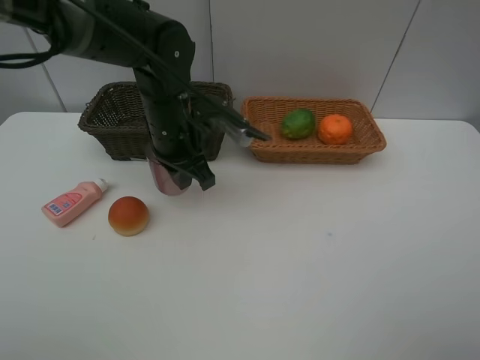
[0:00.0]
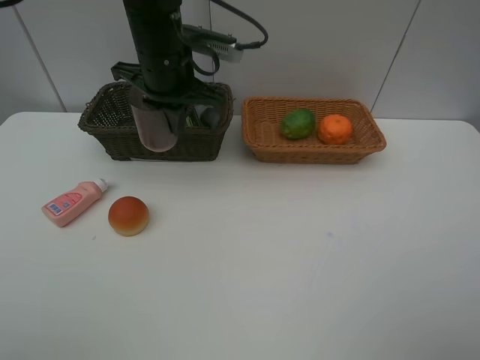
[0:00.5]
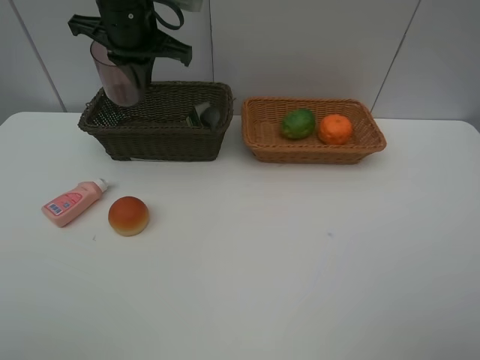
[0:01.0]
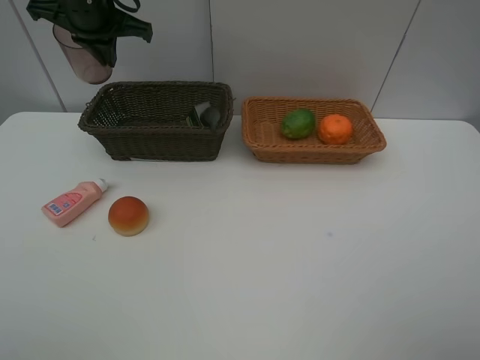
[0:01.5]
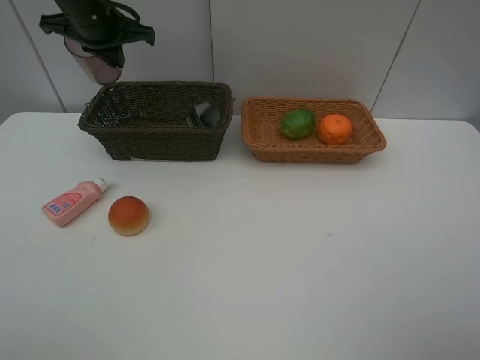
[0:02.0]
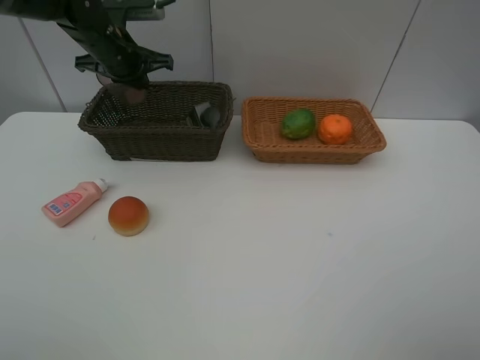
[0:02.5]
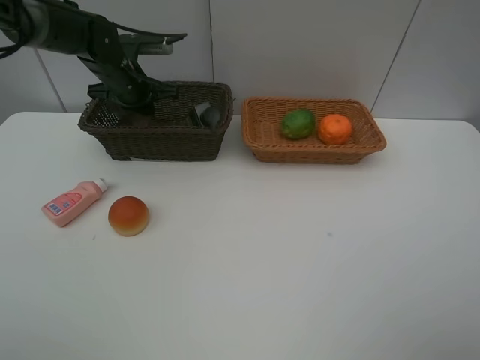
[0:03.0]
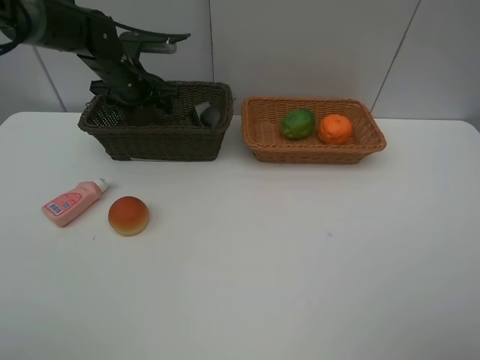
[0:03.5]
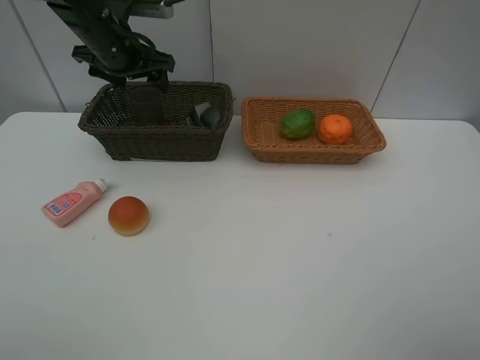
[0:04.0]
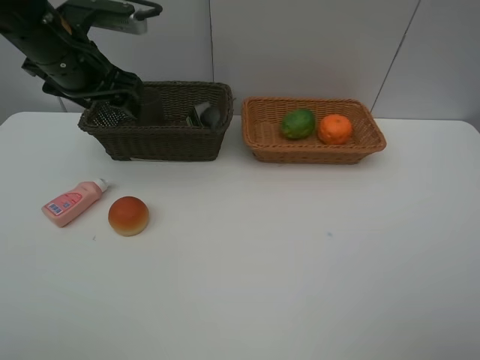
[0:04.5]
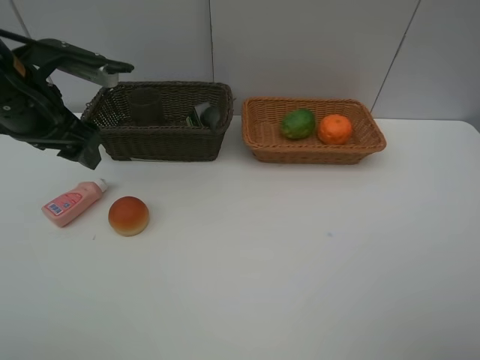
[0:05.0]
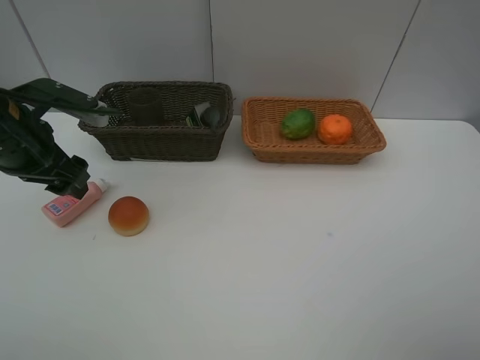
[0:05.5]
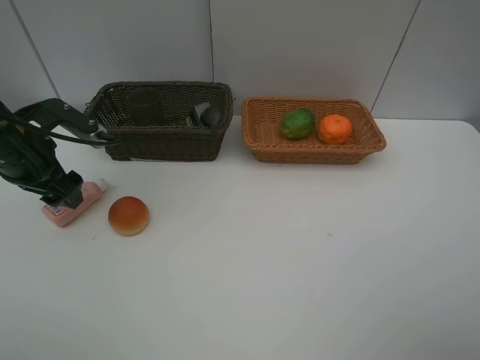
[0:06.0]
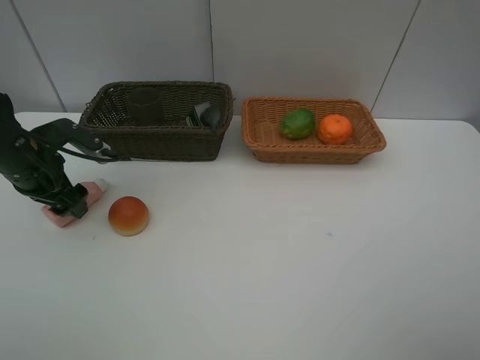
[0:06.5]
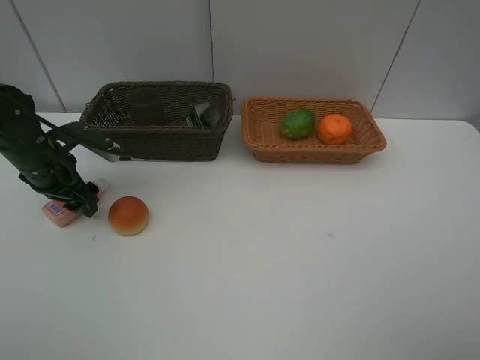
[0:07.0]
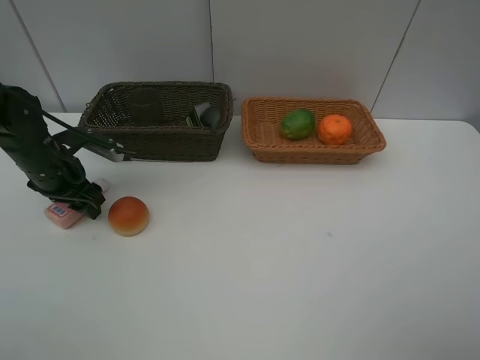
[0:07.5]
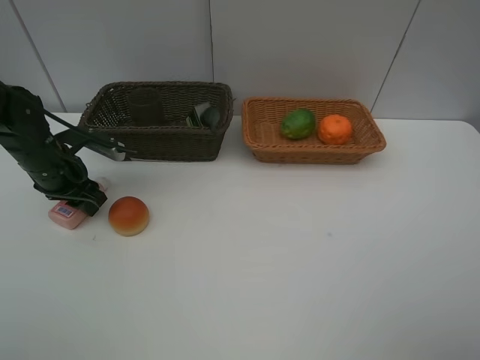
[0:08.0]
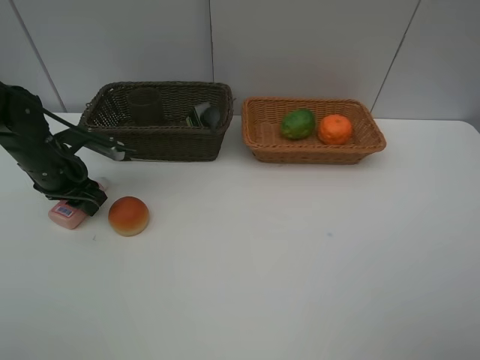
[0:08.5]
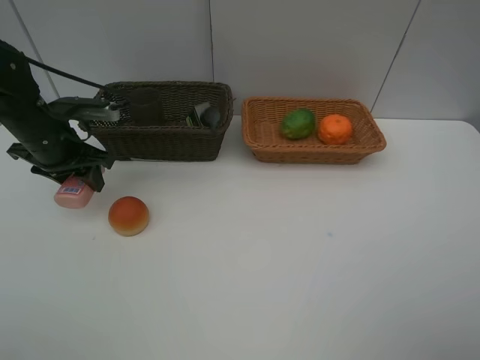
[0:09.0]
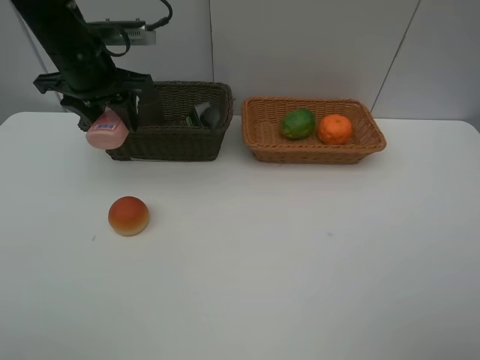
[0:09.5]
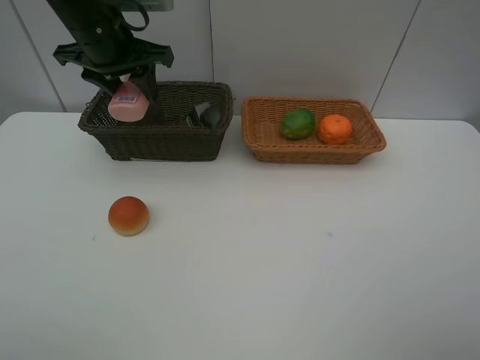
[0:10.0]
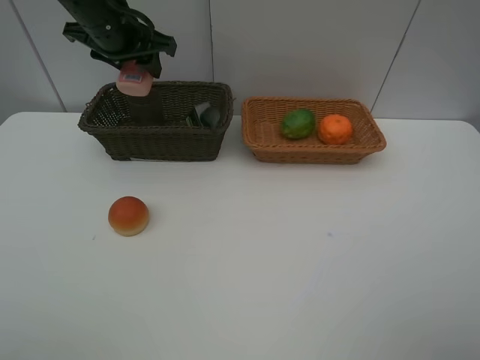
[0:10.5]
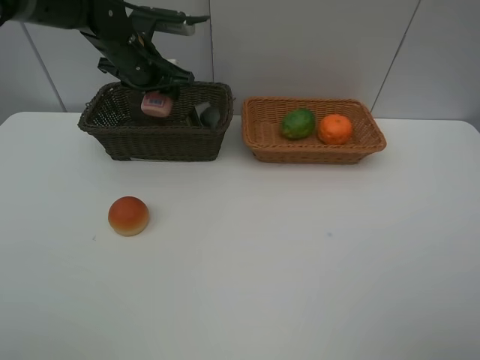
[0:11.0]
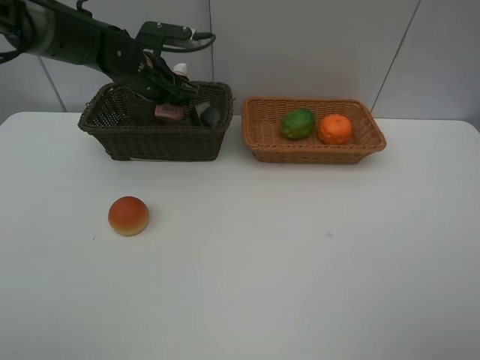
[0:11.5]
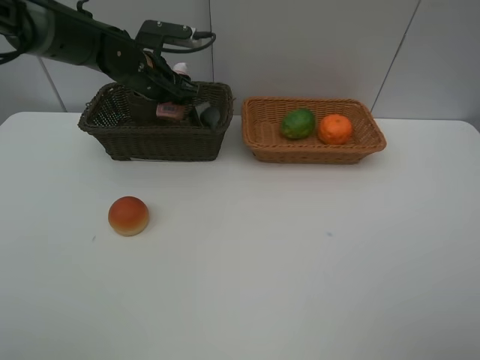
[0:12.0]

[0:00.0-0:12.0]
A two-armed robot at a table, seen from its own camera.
Task of the whole recording: place multiple objects separately in different baskets.
0:00.0 to 0:02.0: The left gripper heads to the left, forward and upward, covering roughly 20 cm.
0:02.0 to 0:04.0: The left gripper goes downward and returns, roughly 10 cm each way, and opens.
0:04.0 to 0:06.0: The left gripper travels backward, to the left and downward by approximately 20 cm.
0:06.0 to 0:08.0: The left gripper heads downward, covering roughly 5 cm, and closes its fingers.
0:08.0 to 0:10.0: The left gripper shifts about 20 cm upward and to the right.
0:10.0 to 0:12.0: The left gripper moves downward and forward, about 10 cm.

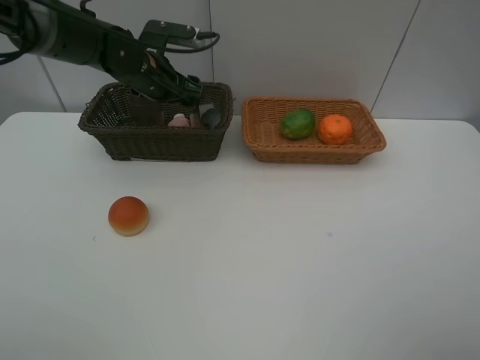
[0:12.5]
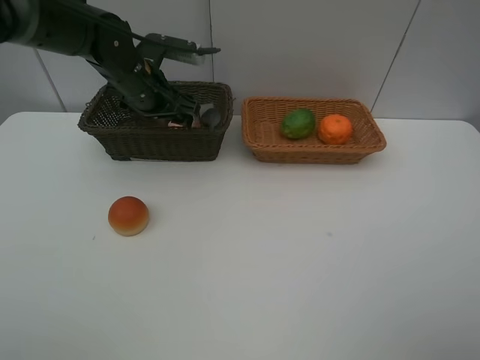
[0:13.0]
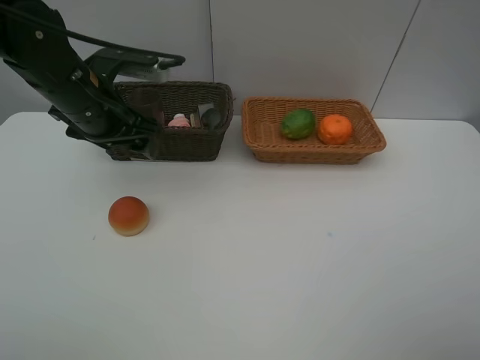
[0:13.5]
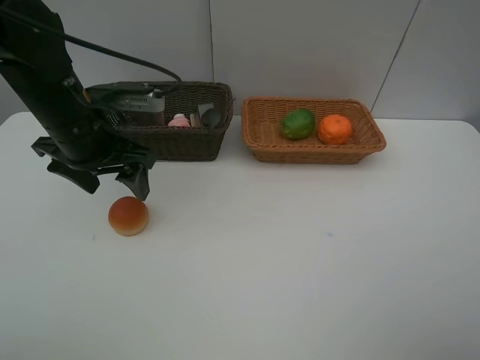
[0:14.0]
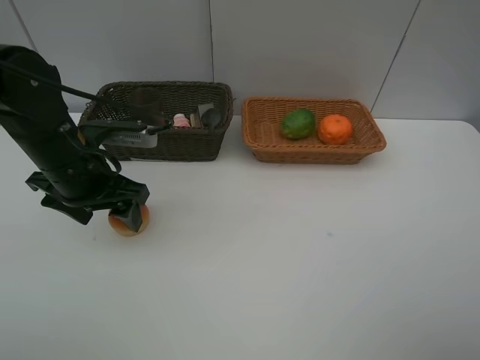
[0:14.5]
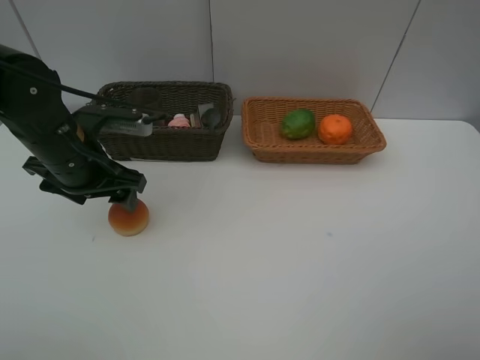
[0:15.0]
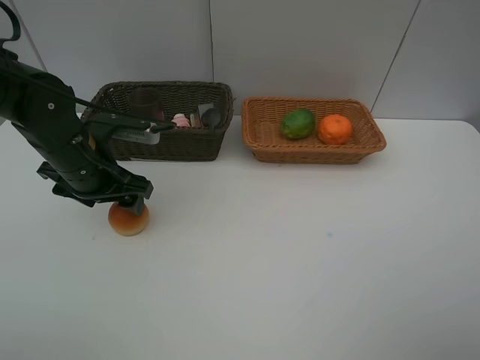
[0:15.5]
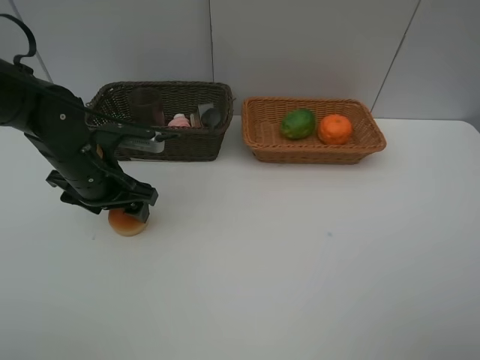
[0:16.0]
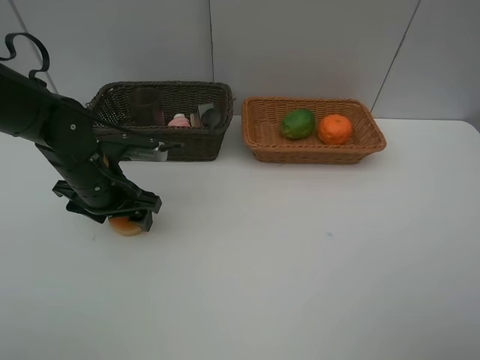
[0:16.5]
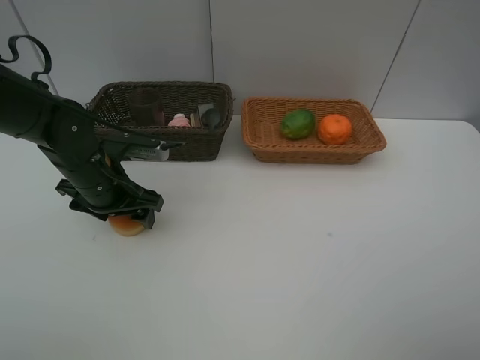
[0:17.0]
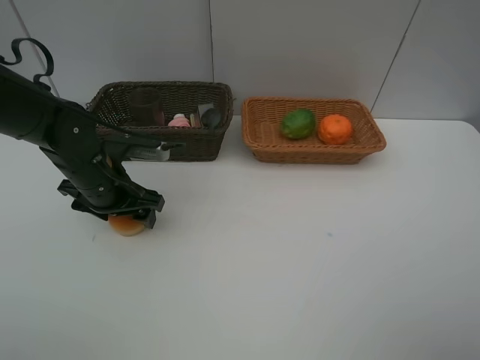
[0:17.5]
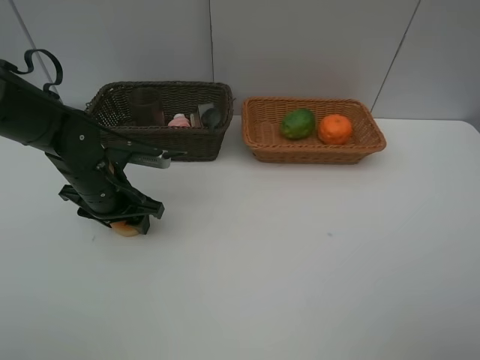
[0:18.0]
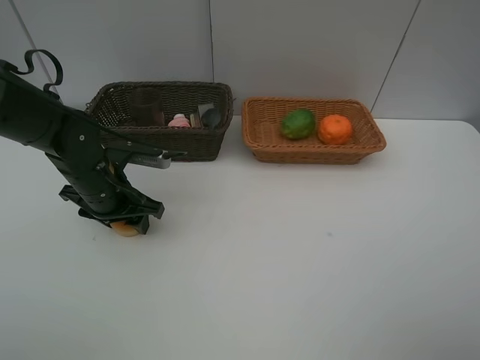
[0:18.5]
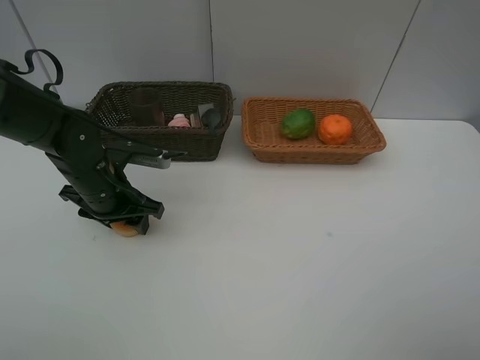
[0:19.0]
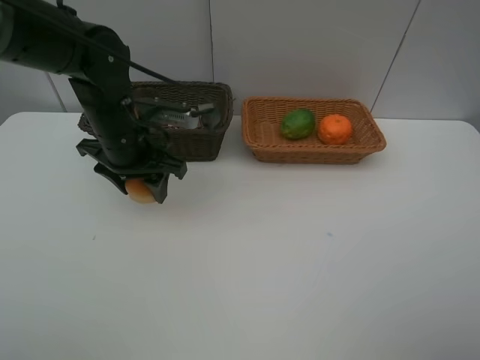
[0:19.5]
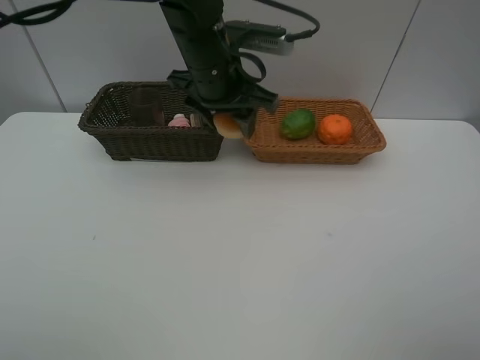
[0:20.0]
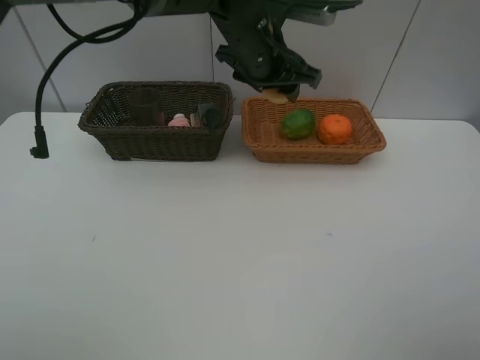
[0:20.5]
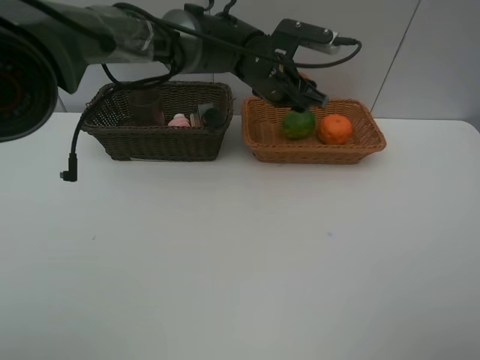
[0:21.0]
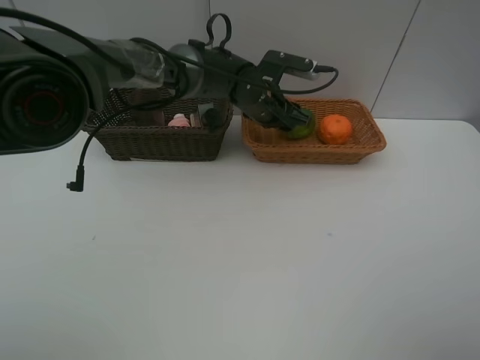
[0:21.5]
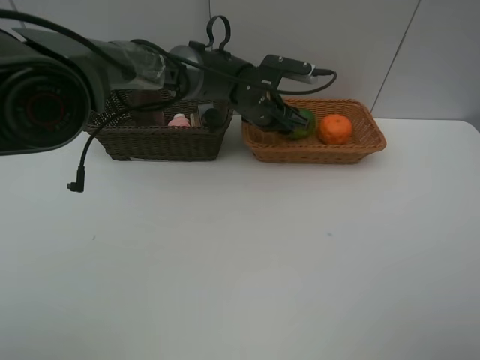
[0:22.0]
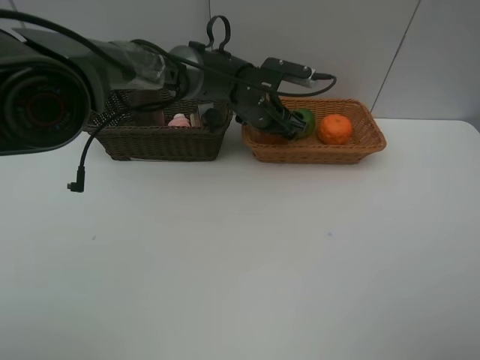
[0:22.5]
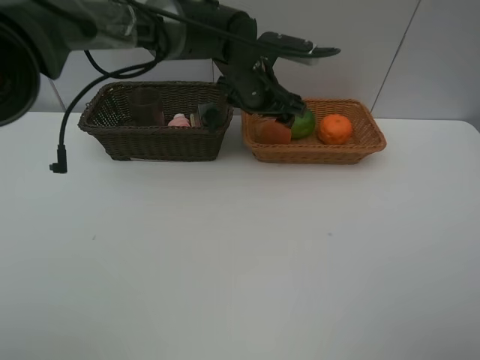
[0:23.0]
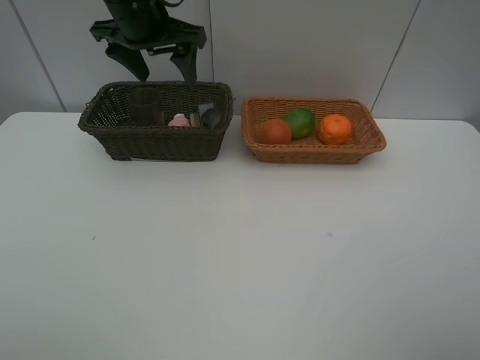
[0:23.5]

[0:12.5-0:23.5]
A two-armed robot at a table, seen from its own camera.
Task of the whole recording: place multiple objects separately in different baskets.
0:12.5 to 0:14.5: The left gripper is displaced backward by some 20 cm.
0:14.5 to 0:16.0: The grippers stay close to where they were, moving slightly.
0:16.0 to 0:18.0: There are only small adjustments of the grippers.
0:18.0 to 0:20.0: The left gripper heads to the right, upward and forward, covering about 25 cm.
0:20.0 to 0:21.5: The left gripper shifts some 15 cm downward, forward and to the right.
0:21.5 to 0:23.5: The left gripper is displaced to the left and upward by some 25 cm.

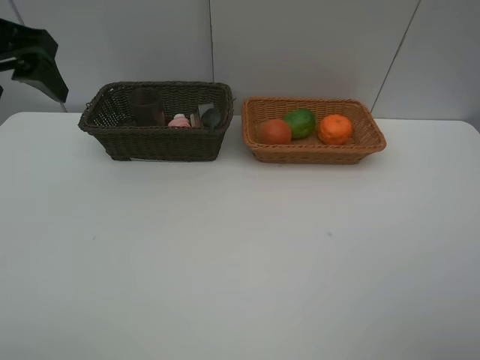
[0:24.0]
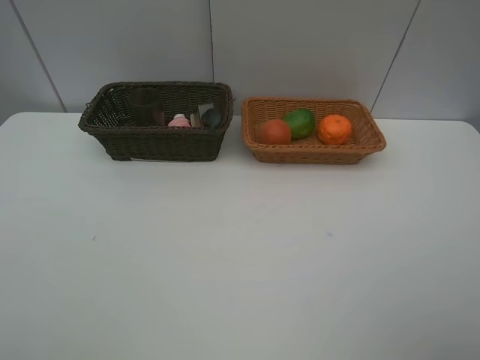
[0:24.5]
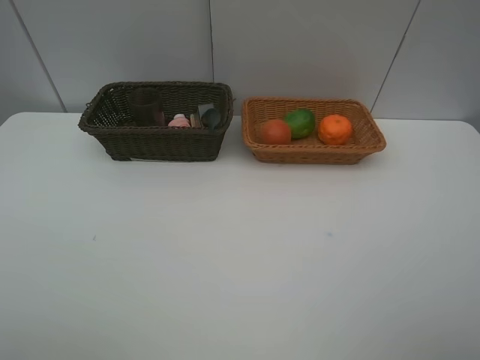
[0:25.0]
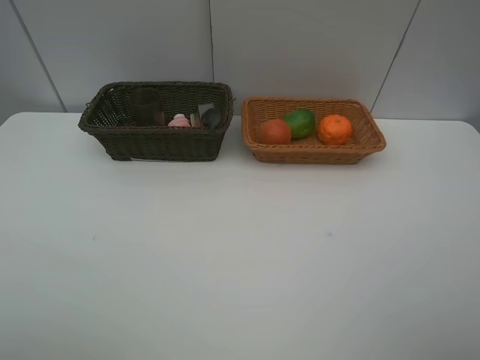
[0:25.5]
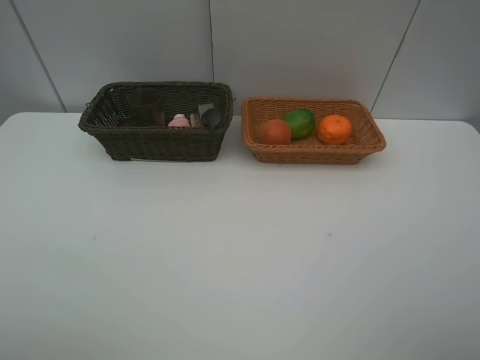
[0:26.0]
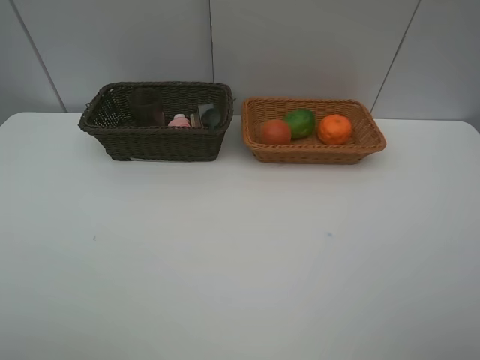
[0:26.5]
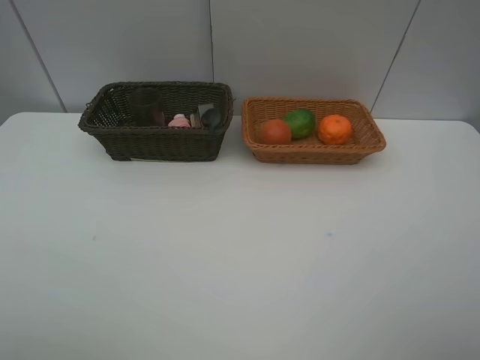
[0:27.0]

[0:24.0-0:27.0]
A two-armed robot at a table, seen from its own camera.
Task of the whole recording: place multiple objects separately in different baskets.
0:24.0 to 0:25.5: The left gripper moves backward, approximately 25 cm.
0:25.5 to 0:27.0: Both grippers stay about where they are.
